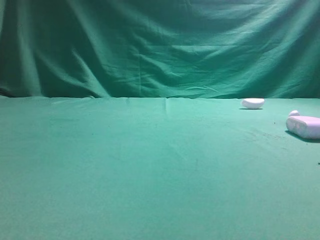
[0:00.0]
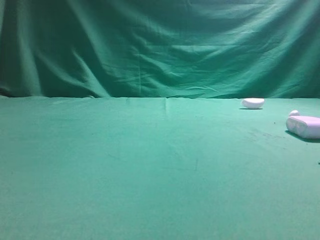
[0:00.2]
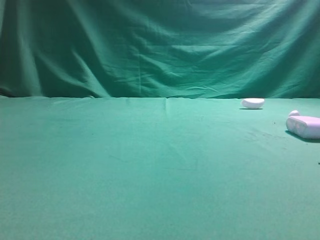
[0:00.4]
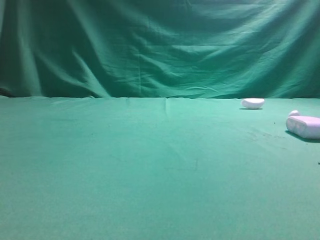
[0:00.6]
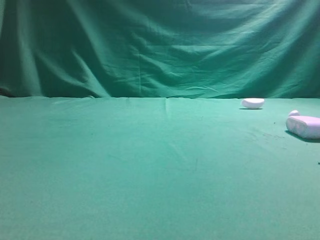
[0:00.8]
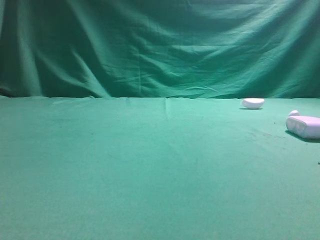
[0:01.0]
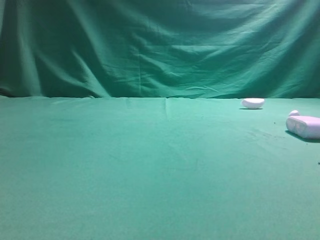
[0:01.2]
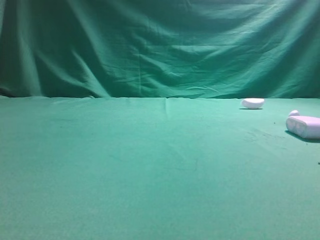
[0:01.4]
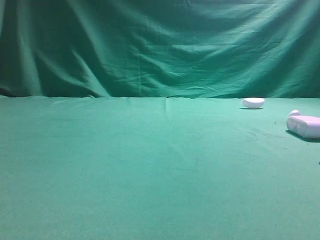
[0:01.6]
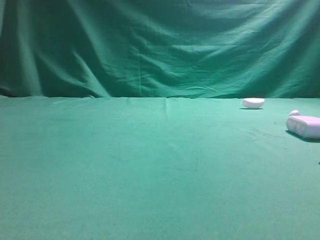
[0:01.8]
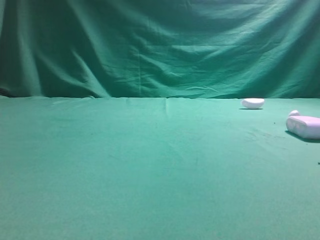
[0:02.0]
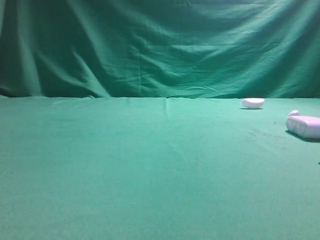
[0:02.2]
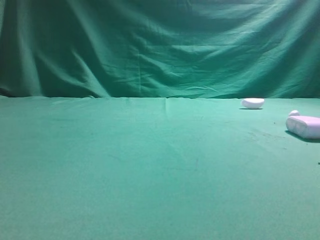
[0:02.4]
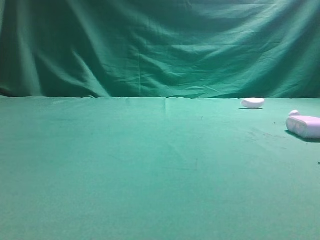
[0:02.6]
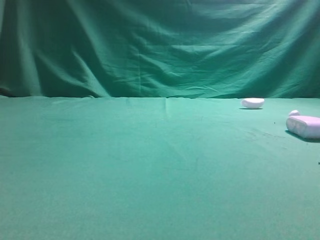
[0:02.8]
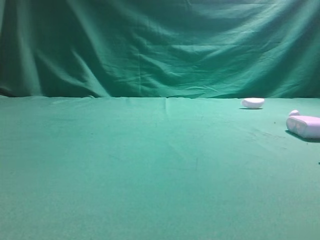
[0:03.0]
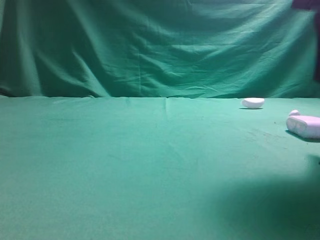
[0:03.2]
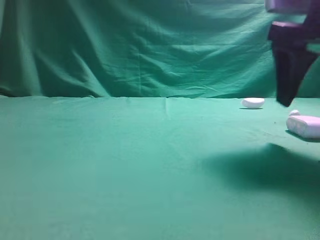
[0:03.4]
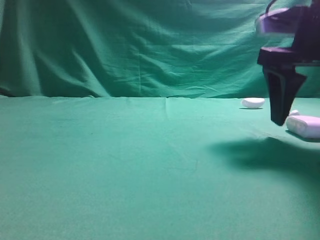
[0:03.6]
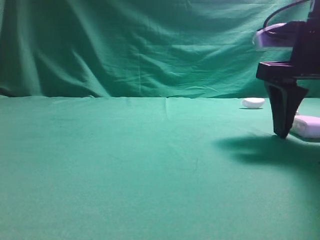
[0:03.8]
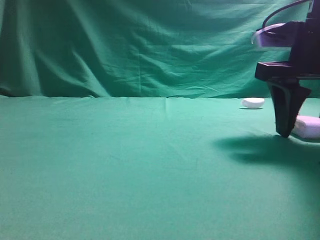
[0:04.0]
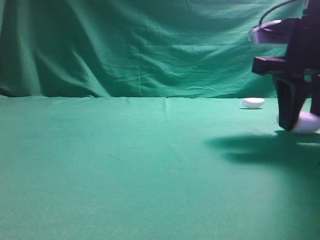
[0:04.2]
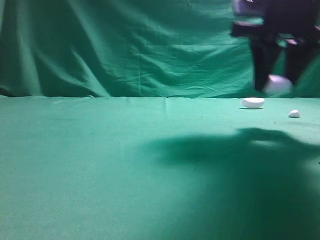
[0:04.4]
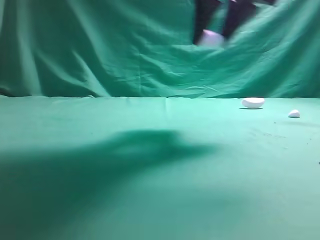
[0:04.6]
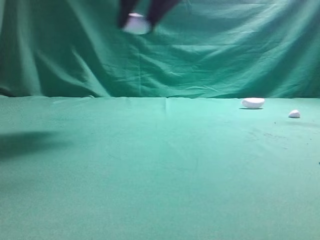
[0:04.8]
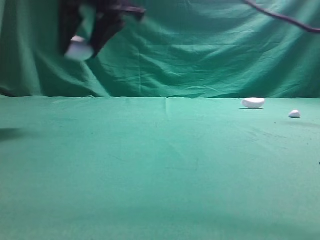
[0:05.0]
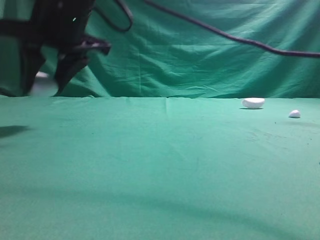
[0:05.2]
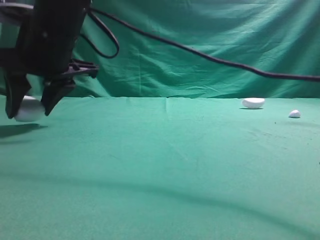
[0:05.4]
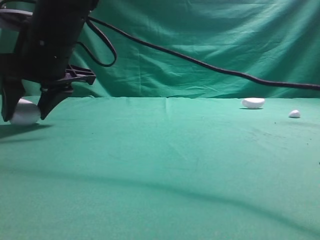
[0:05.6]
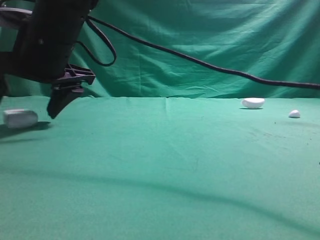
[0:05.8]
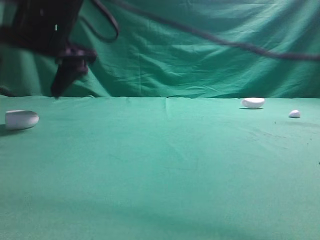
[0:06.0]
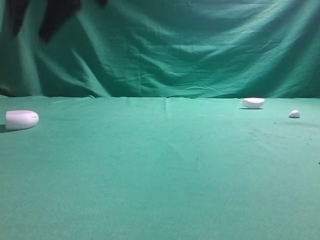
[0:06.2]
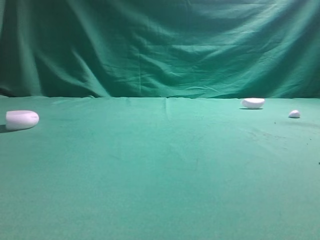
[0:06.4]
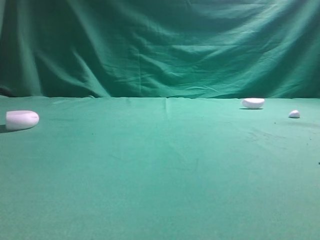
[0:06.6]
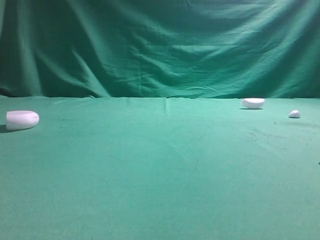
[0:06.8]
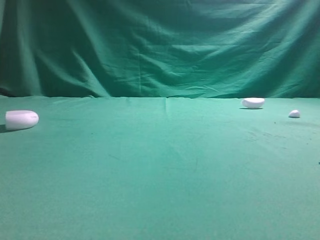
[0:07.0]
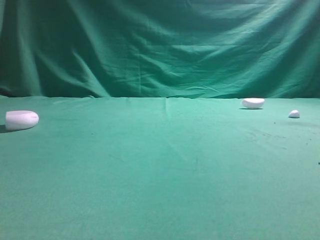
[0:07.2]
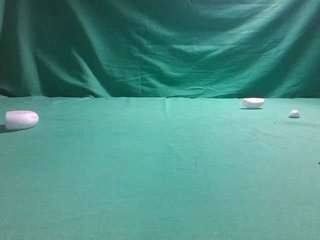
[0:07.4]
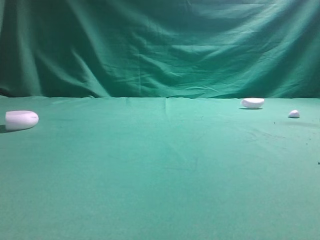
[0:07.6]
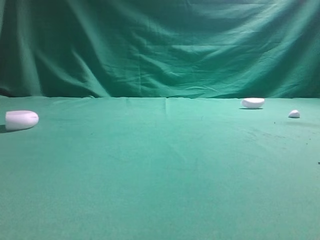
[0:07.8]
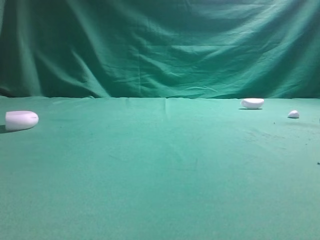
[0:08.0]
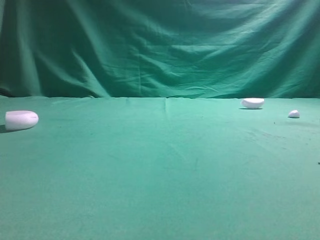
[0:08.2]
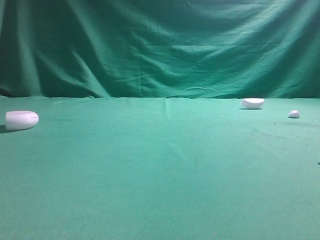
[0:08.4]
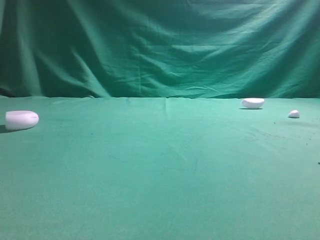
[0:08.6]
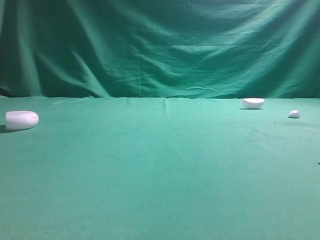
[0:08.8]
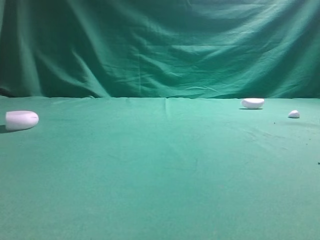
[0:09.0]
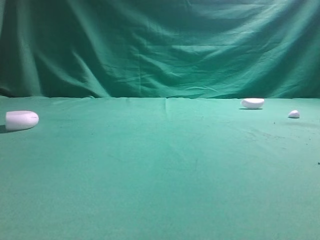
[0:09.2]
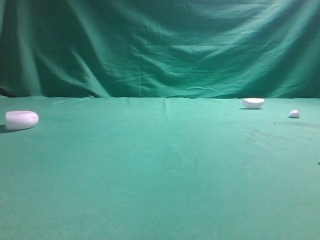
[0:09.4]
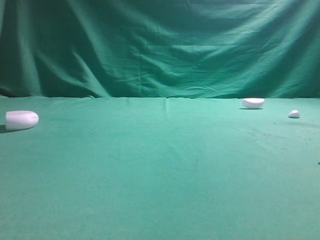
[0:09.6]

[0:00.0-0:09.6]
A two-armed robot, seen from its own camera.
Step, 0:00.0 to 0:04.4: Grasp the Bluetooth earphone case.
Step, 0:04.6 to 0:06.0: Place bluetooth earphone case on the left side of the table.

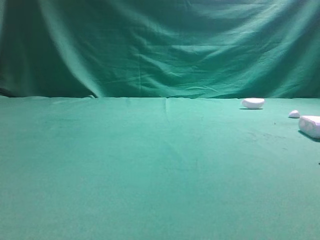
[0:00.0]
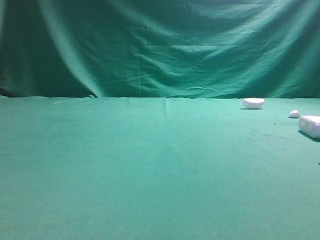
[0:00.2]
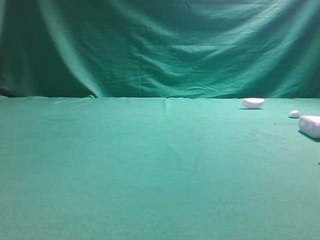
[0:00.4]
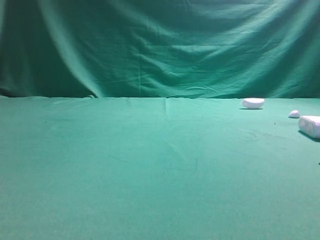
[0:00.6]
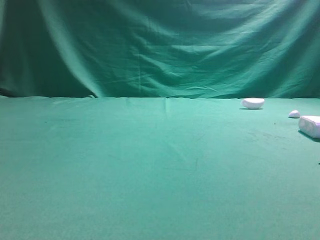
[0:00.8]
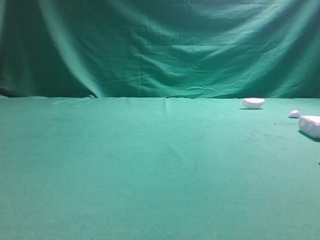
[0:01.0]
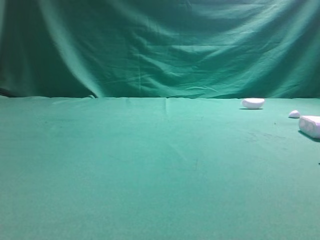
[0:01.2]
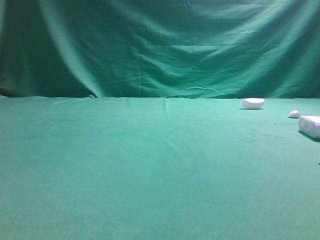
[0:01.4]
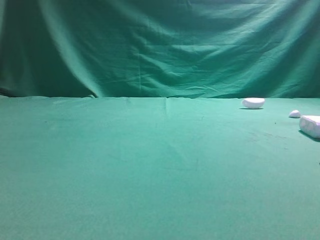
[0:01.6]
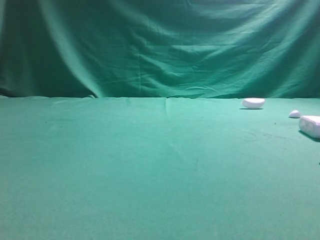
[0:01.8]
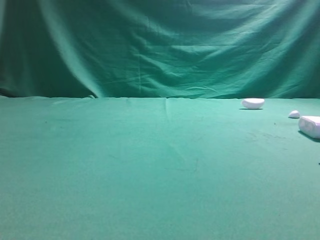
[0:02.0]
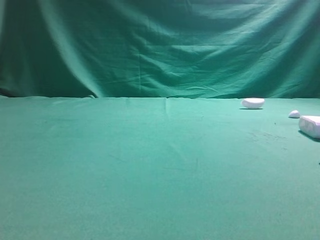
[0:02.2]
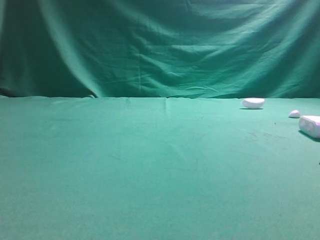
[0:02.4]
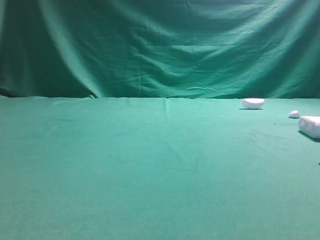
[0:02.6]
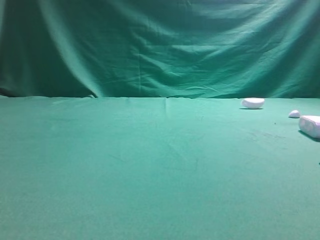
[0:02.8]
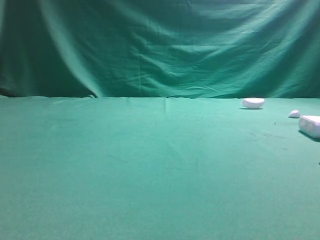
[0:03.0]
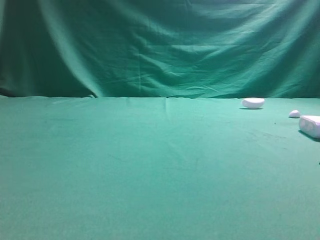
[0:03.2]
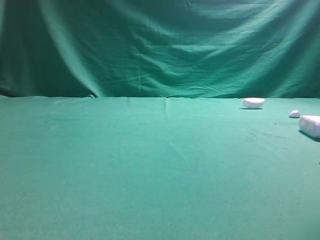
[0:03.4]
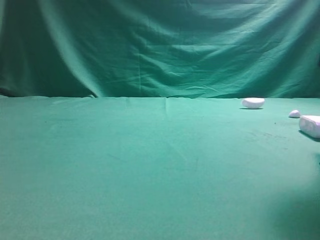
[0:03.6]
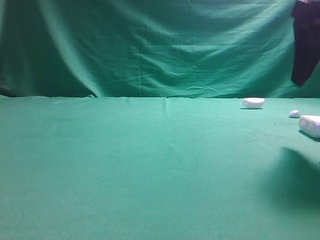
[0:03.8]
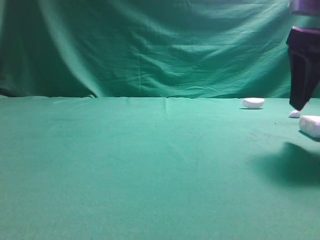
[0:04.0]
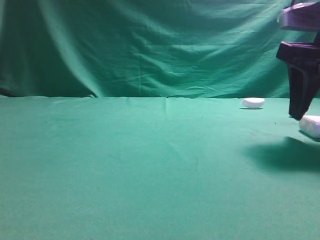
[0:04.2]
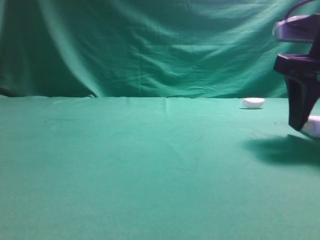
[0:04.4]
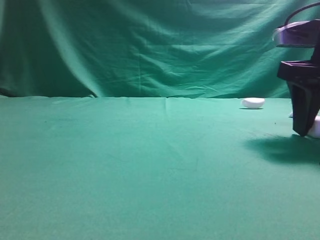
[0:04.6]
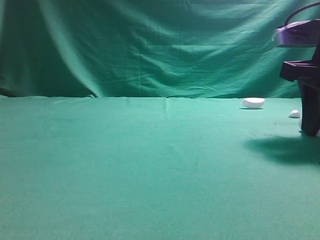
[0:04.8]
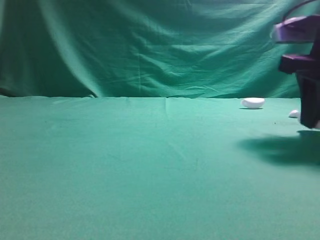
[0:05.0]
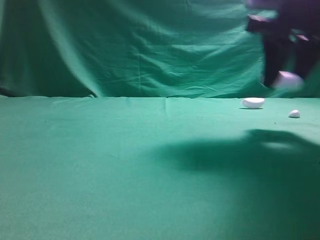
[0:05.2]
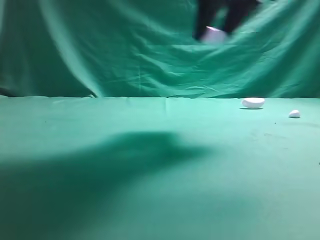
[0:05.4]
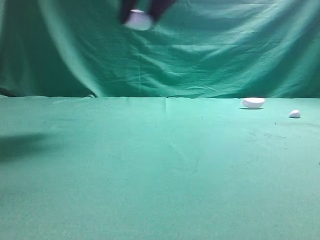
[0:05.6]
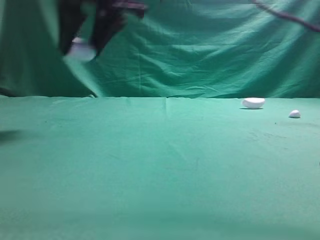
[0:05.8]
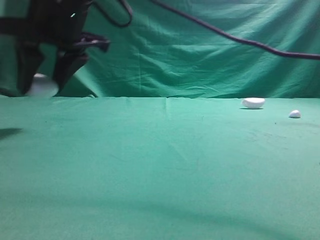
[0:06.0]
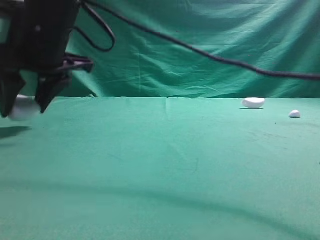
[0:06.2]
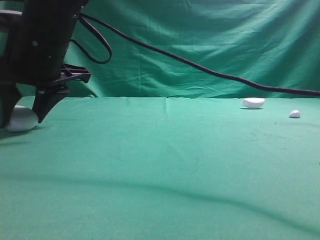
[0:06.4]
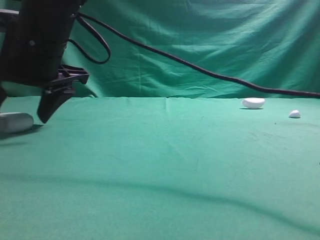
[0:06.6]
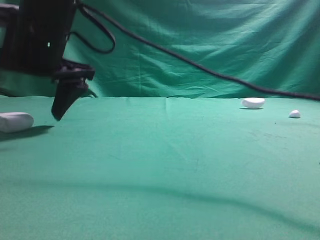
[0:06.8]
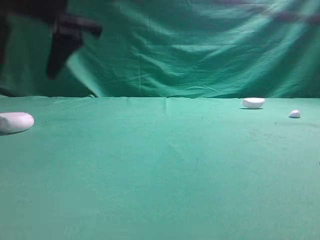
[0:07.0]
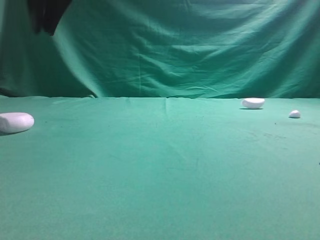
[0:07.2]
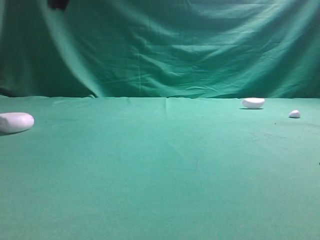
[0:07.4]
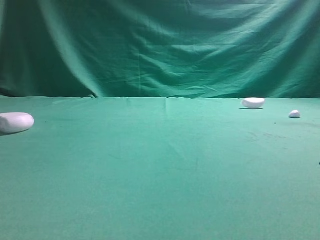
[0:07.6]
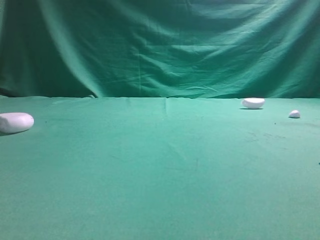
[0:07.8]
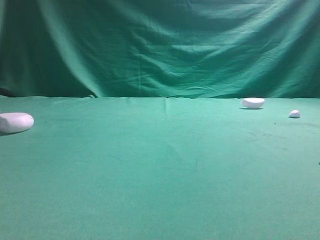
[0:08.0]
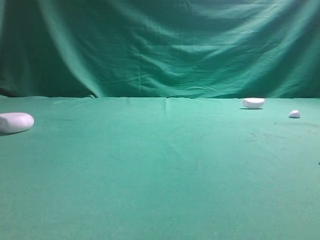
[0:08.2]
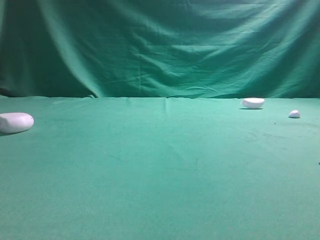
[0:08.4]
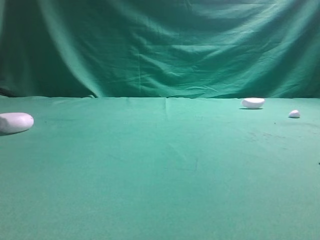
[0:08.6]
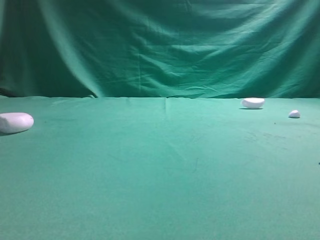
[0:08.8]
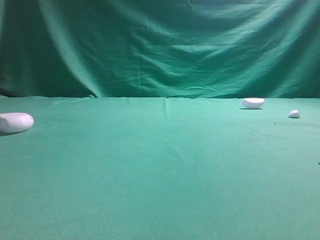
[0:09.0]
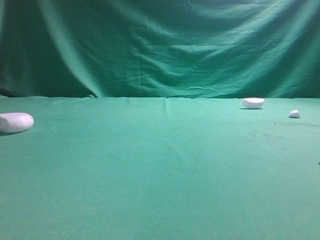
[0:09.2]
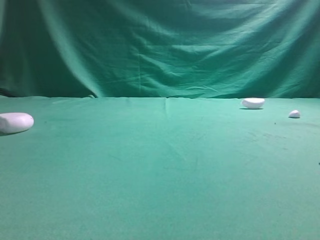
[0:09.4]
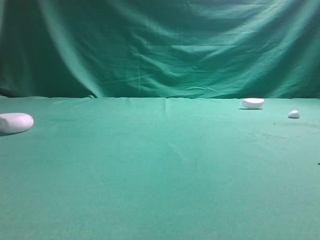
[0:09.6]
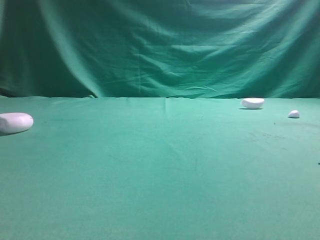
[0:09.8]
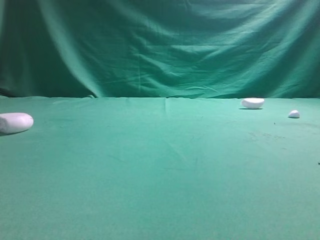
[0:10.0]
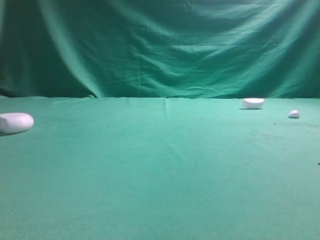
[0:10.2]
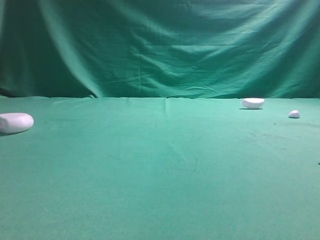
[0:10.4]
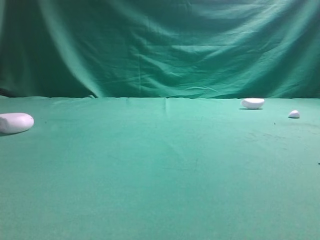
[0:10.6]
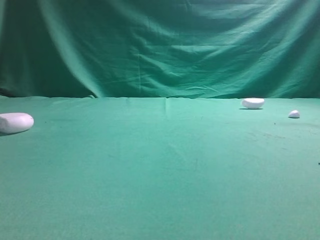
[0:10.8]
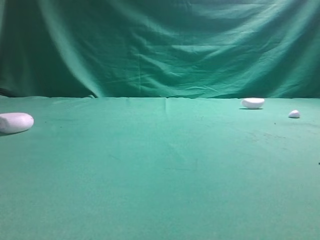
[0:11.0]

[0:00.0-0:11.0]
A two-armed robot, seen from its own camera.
Step, 0:00.0 to 0:05.0: Grasp the Bluetooth earphone case.
Step, 0:05.2 to 0:06.8: Place bluetooth earphone case on the left side of the table.
